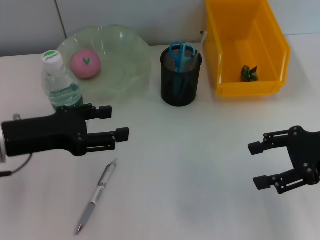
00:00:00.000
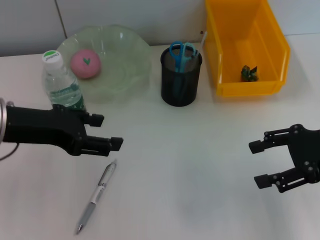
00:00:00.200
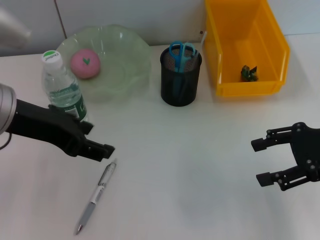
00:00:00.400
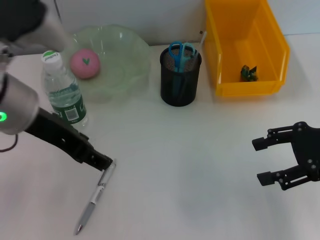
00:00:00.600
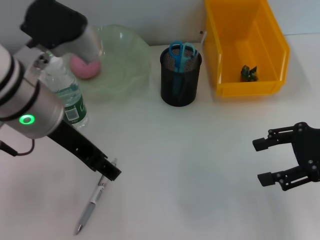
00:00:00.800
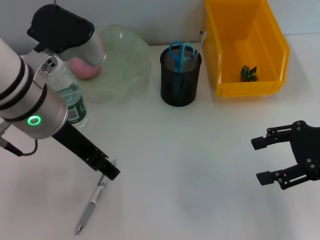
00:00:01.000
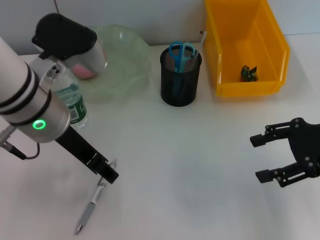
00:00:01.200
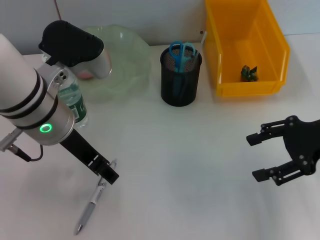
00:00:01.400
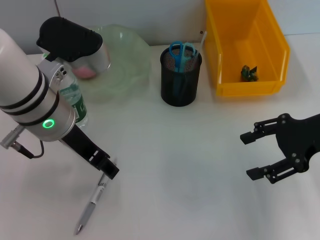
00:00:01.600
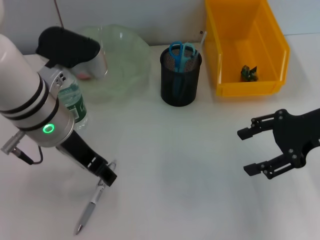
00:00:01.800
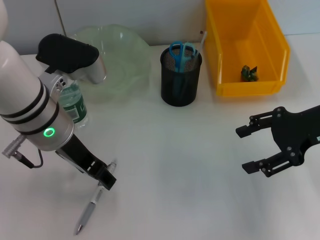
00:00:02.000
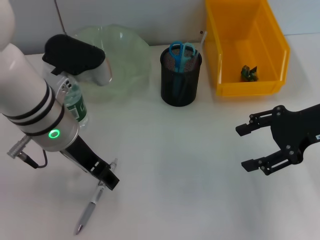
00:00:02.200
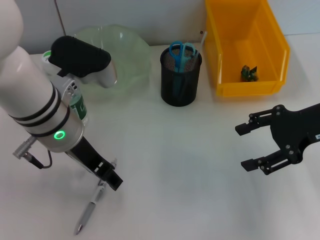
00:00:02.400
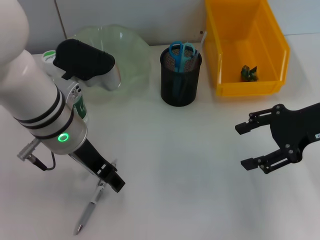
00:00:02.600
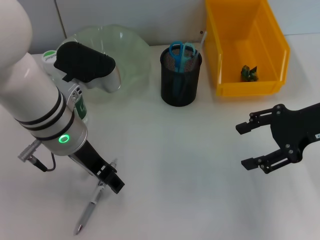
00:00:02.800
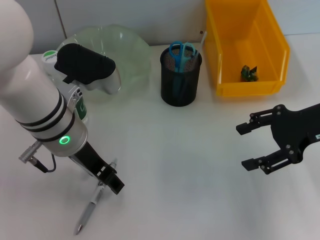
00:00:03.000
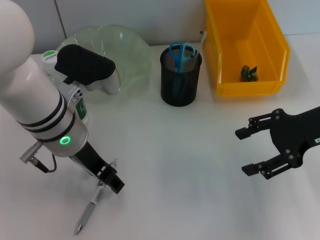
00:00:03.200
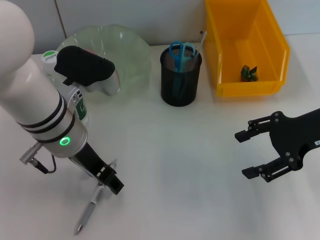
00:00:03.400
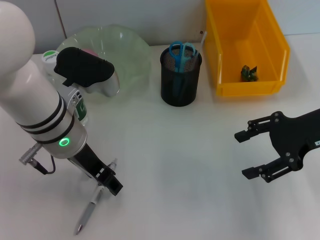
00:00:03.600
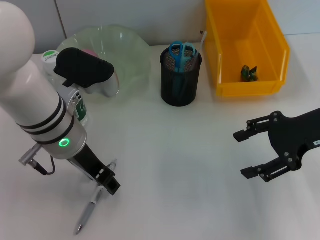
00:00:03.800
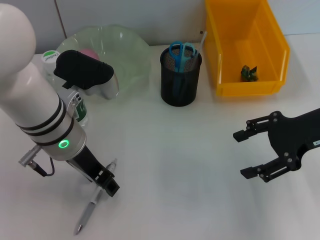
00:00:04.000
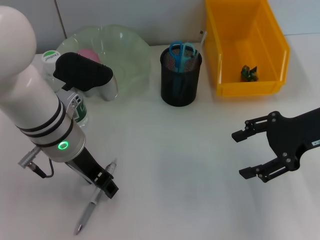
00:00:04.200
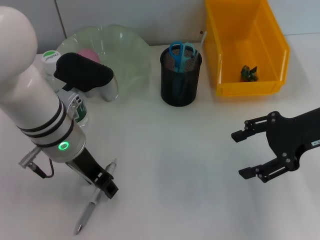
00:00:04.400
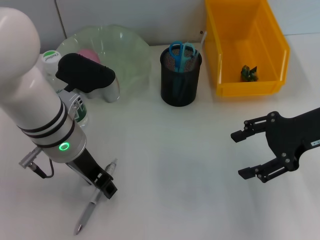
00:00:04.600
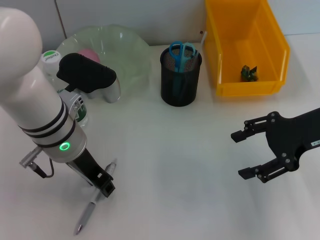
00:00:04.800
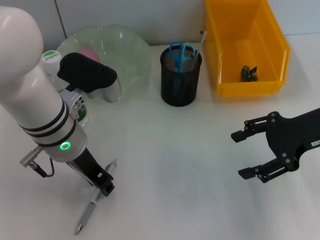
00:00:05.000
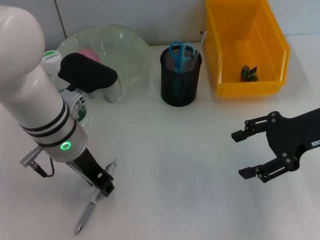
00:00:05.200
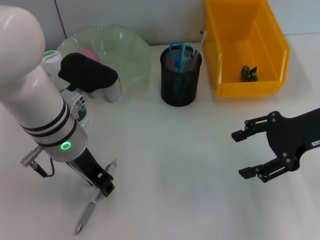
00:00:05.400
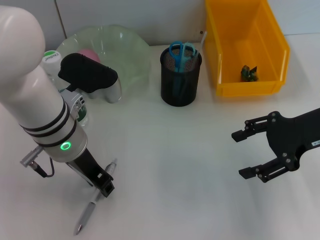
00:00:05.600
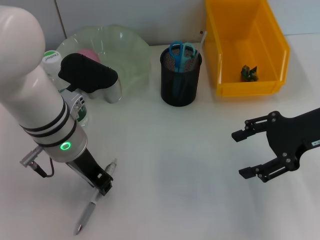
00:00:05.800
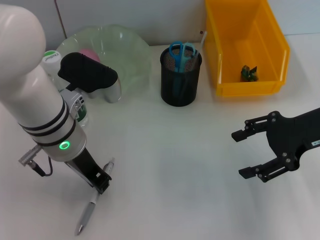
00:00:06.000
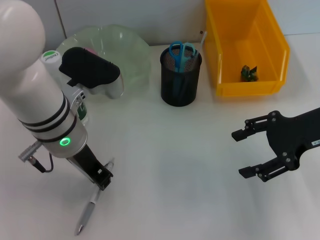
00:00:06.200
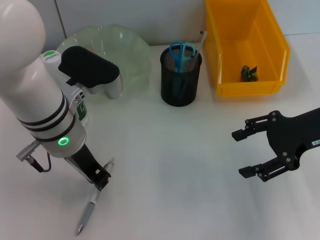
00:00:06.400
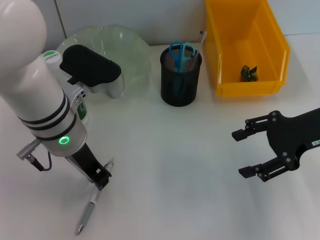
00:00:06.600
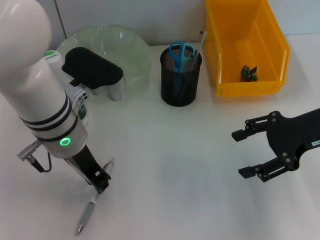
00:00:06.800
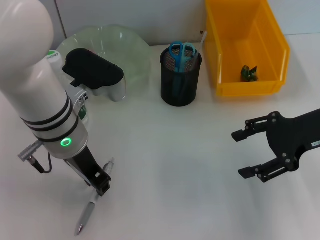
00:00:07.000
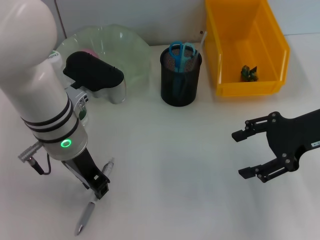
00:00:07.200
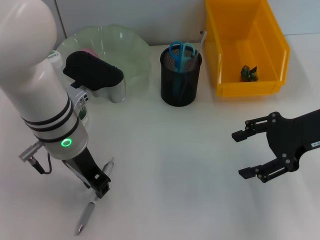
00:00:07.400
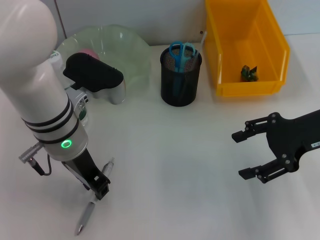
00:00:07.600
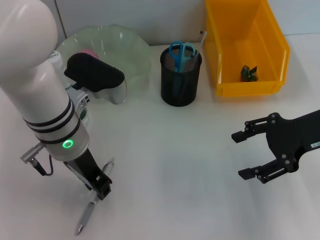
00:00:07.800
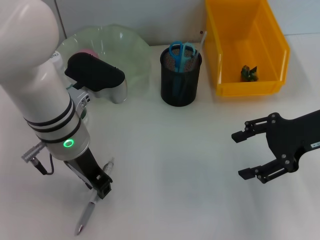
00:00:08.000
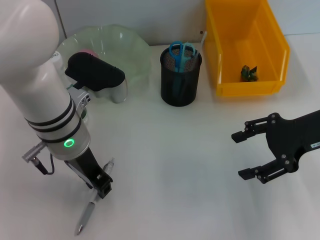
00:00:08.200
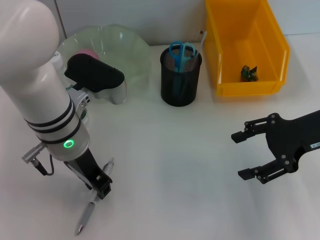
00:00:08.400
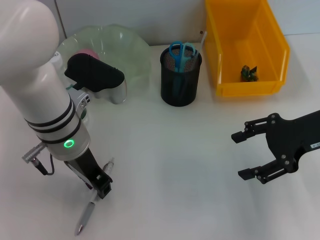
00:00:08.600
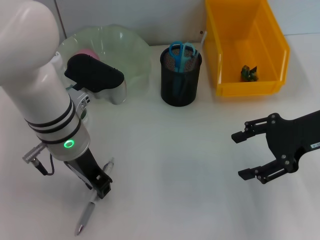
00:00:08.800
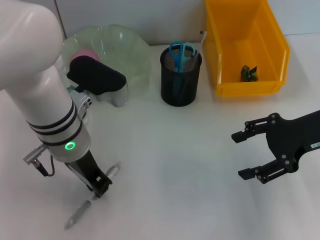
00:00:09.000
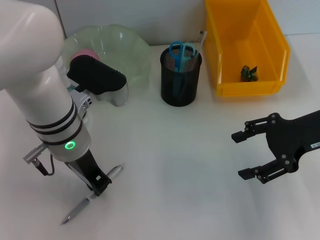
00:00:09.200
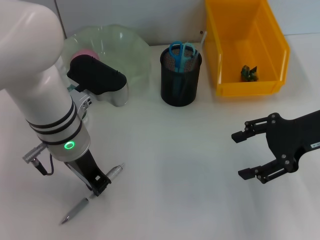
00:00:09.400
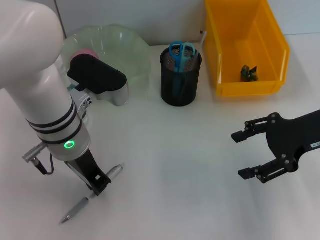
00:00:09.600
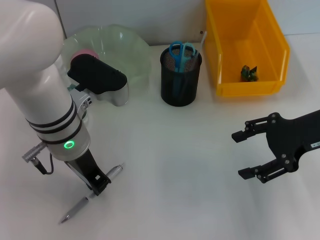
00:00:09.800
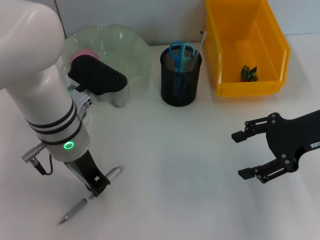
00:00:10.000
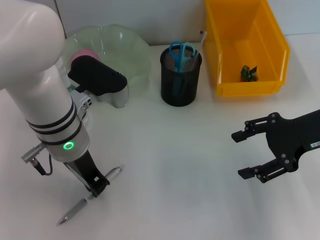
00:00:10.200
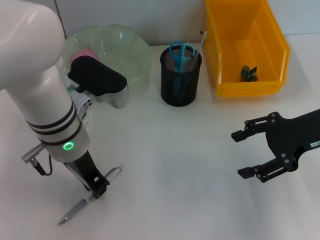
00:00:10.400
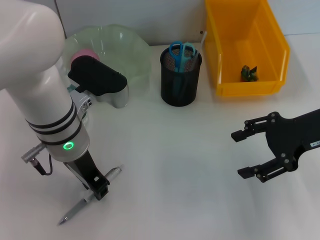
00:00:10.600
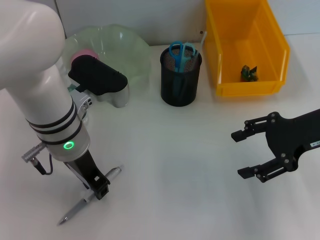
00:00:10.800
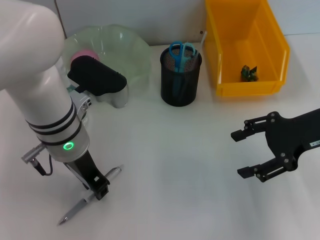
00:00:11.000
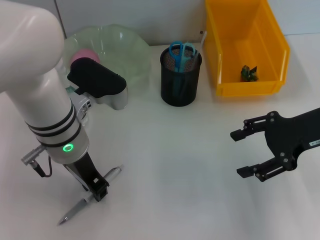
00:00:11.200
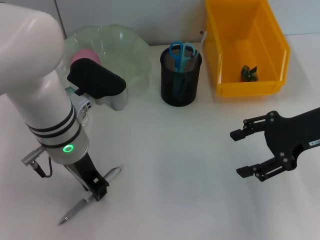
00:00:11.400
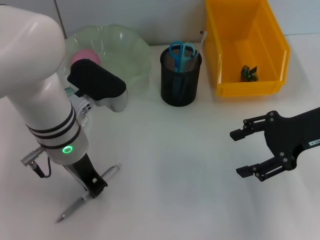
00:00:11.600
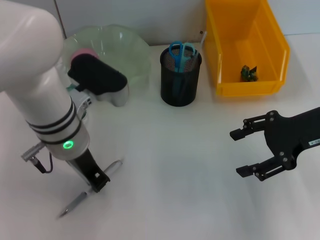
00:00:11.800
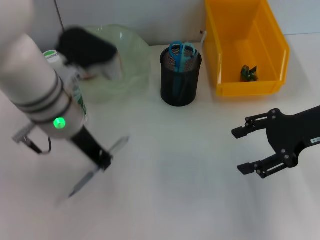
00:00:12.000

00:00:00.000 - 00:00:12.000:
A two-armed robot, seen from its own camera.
Step, 00:00:00.000 - 00:00:11.600: Grab the gray spring-action pen with the left hand.
00:00:00.000 - 00:00:01.600: The left gripper moves to the right, some 10 cm.
00:00:01.600 - 00:00:03.000: The grippers move only a little.
00:00:03.000 - 00:00:04.400: Neither gripper changes place.
00:00:04.400 - 00:00:06.000: The left gripper closes.
00:00:06.000 - 00:00:09.000: The two grippers keep their place.
00:00:09.000 - 00:00:10.400: The two grippers keep their place.
00:00:10.400 - 00:00:12.000: The grippers stay close to where they were, moving slightly.

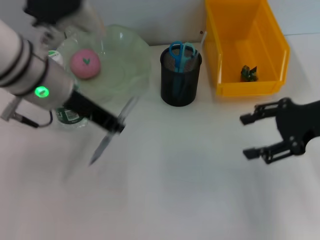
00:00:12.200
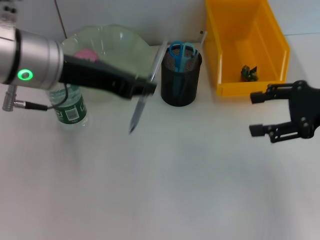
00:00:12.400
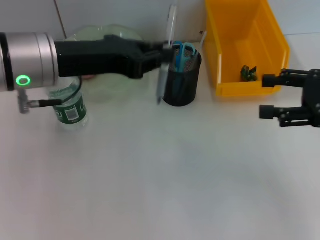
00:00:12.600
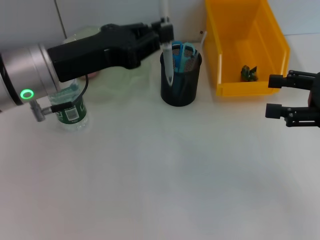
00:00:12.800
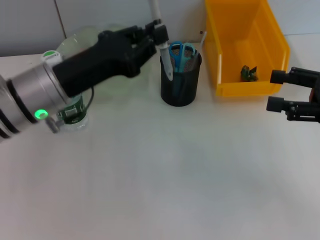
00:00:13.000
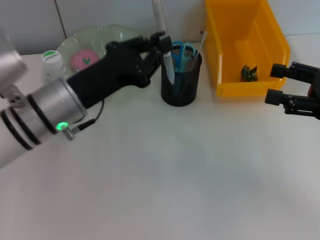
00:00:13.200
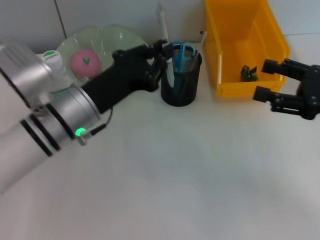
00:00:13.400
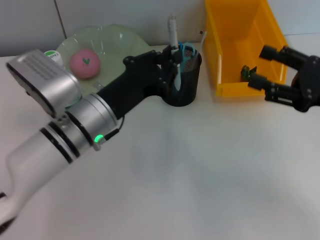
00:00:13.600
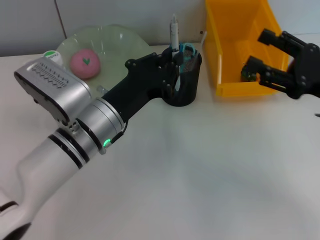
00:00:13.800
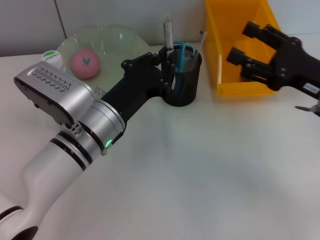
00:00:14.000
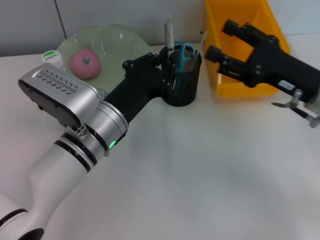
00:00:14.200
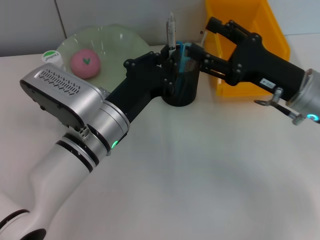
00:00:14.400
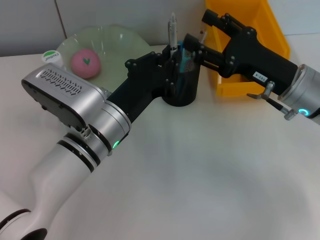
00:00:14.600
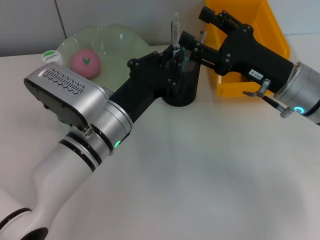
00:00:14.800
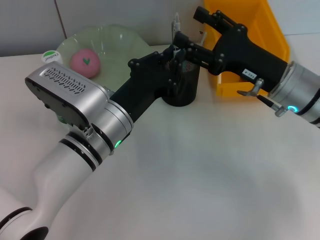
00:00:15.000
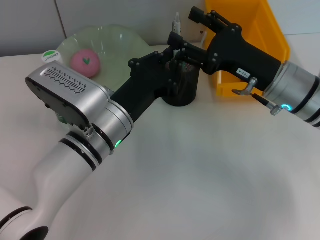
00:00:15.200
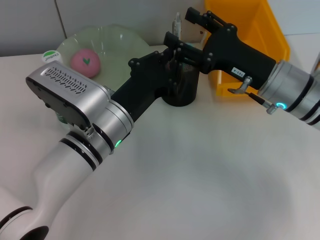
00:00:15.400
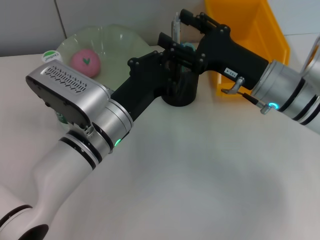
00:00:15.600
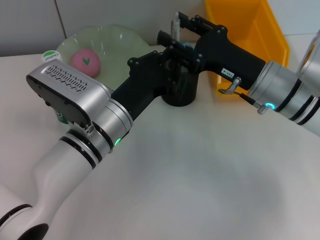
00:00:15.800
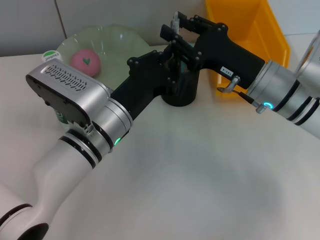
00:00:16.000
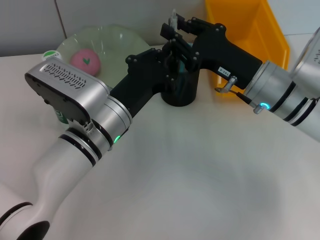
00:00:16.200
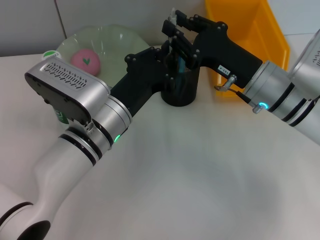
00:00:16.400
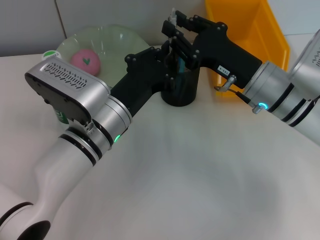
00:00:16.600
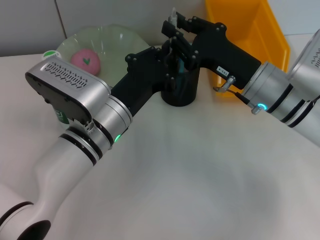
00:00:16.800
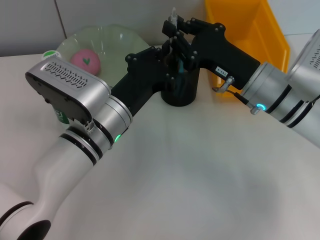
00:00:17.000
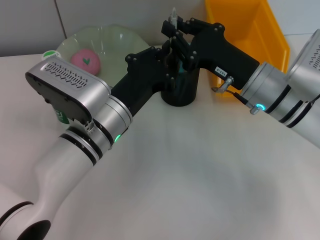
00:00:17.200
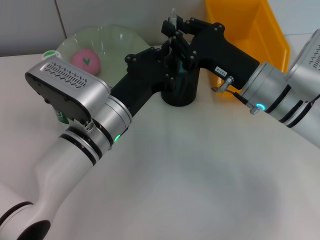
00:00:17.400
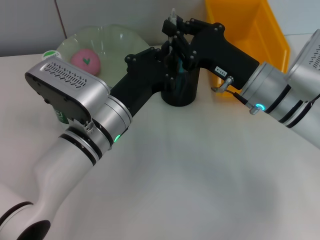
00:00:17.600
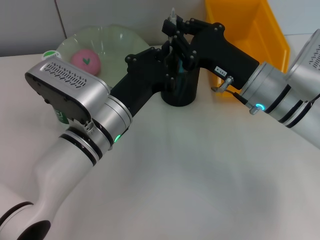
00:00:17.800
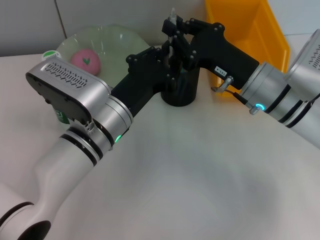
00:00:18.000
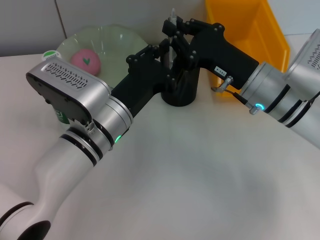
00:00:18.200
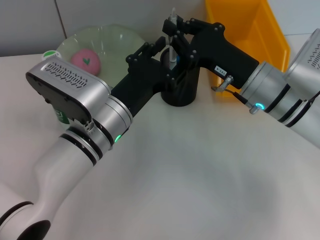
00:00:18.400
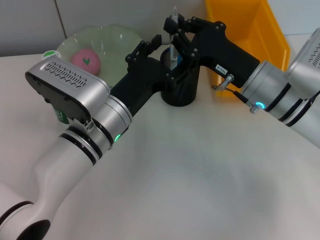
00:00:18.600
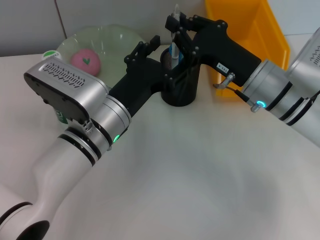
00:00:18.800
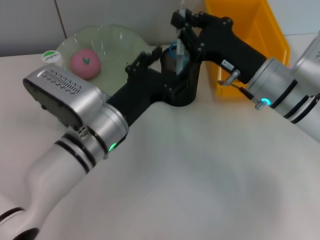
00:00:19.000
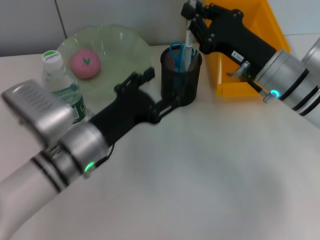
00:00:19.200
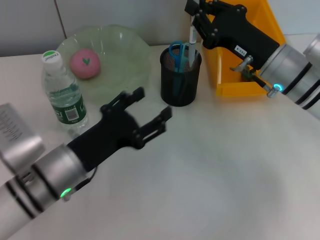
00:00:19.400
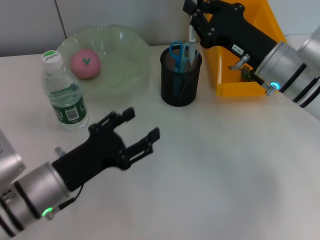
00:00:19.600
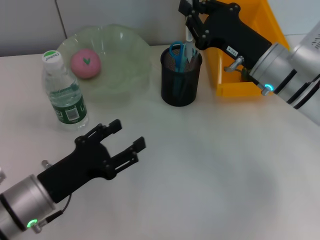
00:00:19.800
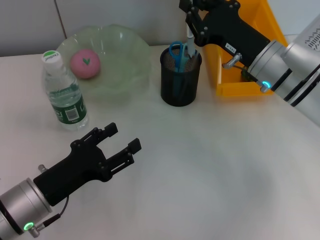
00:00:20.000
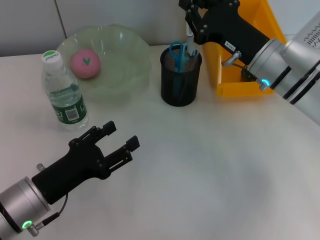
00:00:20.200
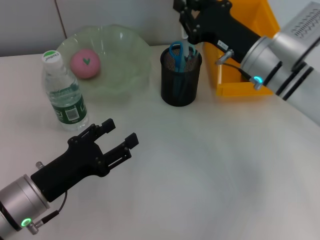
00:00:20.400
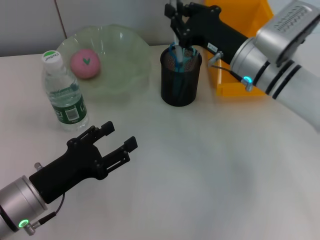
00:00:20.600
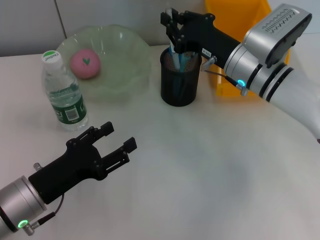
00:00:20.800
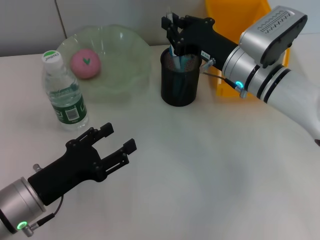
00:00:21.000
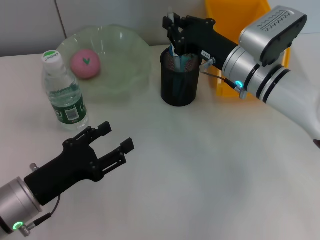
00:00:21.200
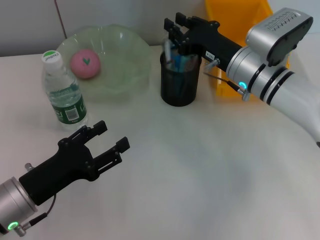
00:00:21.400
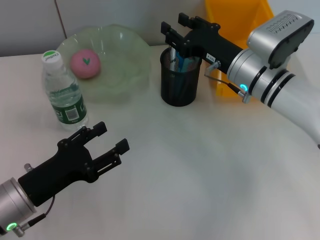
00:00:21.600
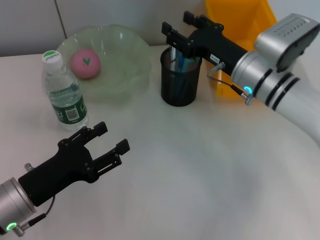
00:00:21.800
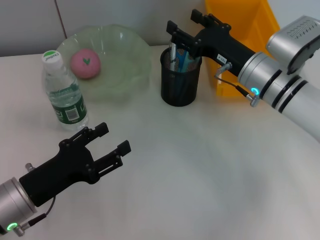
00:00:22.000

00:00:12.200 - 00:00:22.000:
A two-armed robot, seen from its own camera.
Step, 00:00:12.200 - 00:00:18.400: Pass the gray spring-action pen from the left hand to the right hand.
Step, 00:00:18.600 - 00:00:21.600: Place the gray spring-action pen into the pen holder with the right hand.
00:00:12.200 - 00:00:13.600: The left gripper travels downward by some 10 cm.
00:00:13.600 - 00:00:15.000: The right gripper goes roughly 10 cm to the left and forward.
00:00:15.000 - 00:00:16.400: The right gripper closes its fingers.
00:00:16.400 - 00:00:17.800: Both grippers stay about where they are.
00:00:17.800 - 00:00:19.200: The left gripper opens its fingers.
00:00:19.200 - 00:00:20.600: The left gripper moves to the left and backward, about 10 cm.
00:00:20.600 - 00:00:22.000: The right gripper opens.
